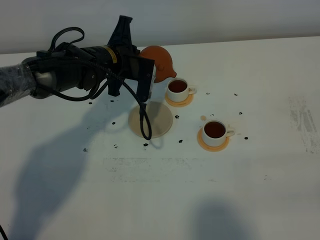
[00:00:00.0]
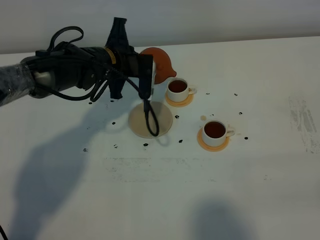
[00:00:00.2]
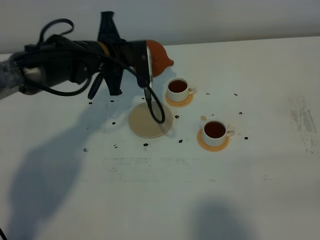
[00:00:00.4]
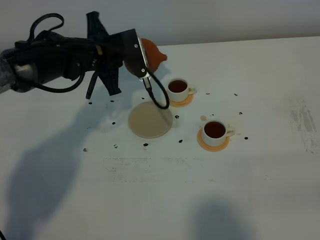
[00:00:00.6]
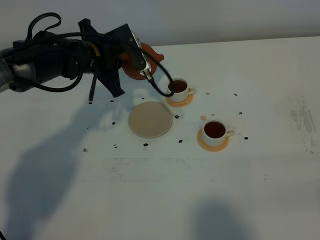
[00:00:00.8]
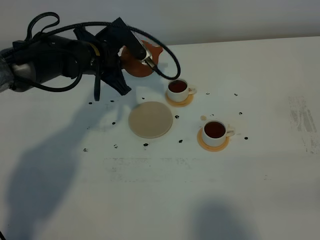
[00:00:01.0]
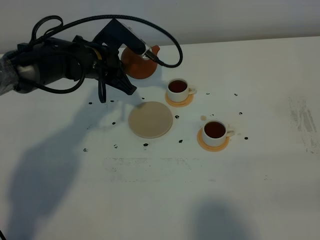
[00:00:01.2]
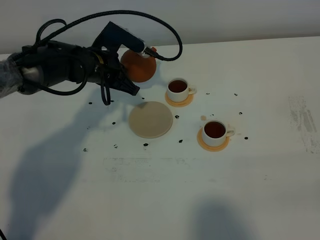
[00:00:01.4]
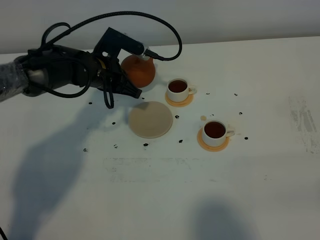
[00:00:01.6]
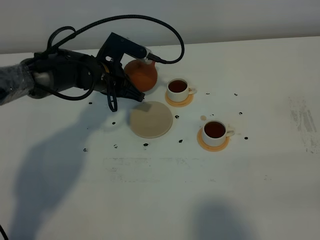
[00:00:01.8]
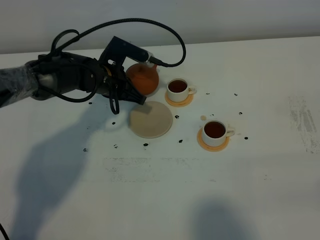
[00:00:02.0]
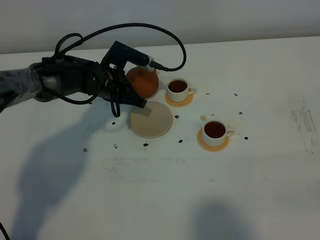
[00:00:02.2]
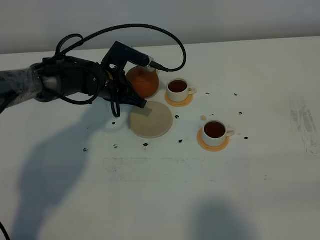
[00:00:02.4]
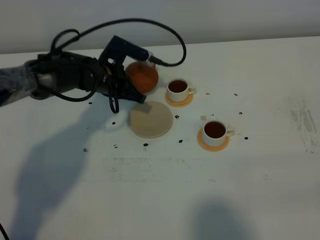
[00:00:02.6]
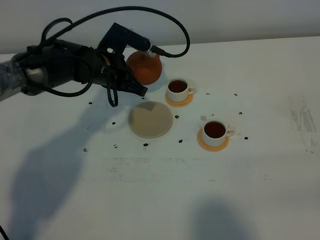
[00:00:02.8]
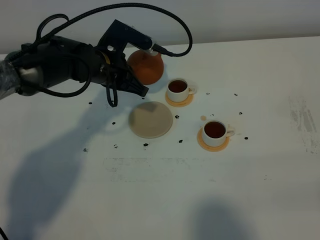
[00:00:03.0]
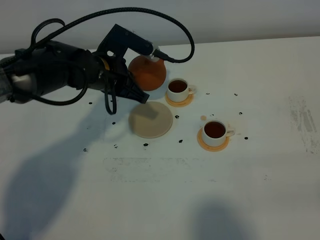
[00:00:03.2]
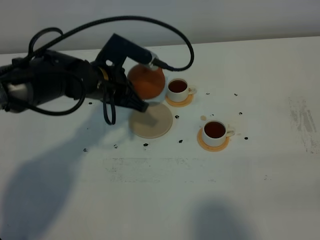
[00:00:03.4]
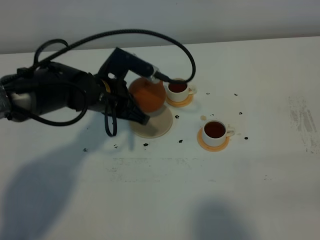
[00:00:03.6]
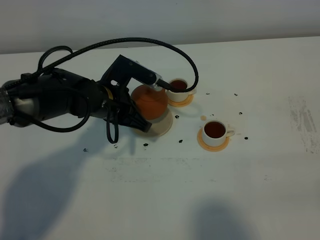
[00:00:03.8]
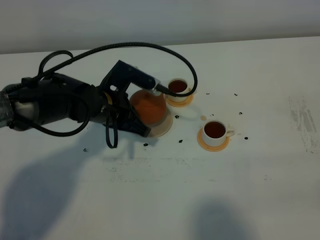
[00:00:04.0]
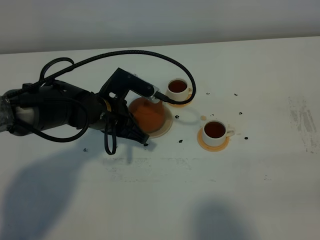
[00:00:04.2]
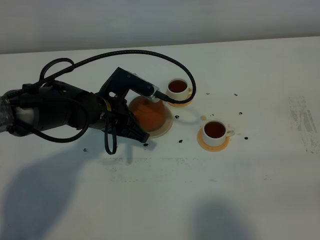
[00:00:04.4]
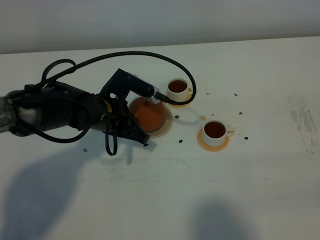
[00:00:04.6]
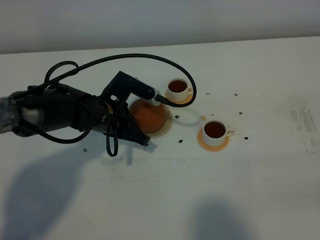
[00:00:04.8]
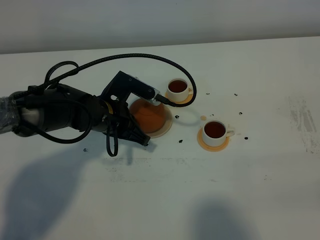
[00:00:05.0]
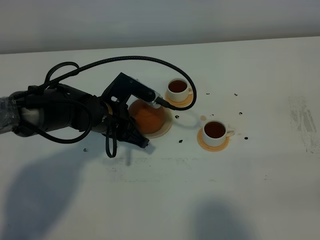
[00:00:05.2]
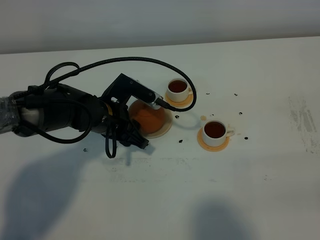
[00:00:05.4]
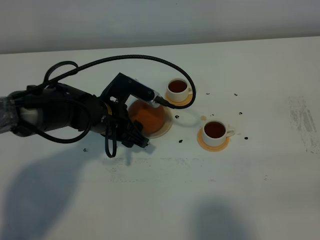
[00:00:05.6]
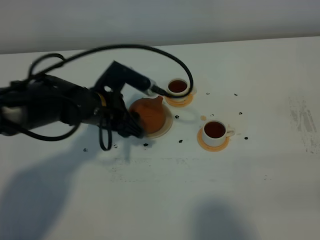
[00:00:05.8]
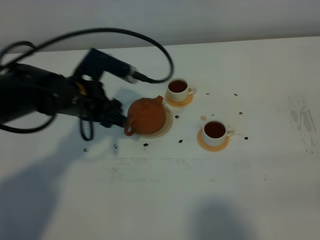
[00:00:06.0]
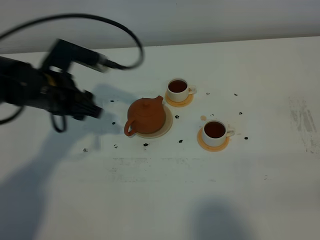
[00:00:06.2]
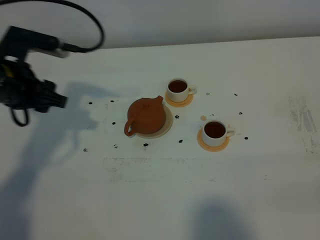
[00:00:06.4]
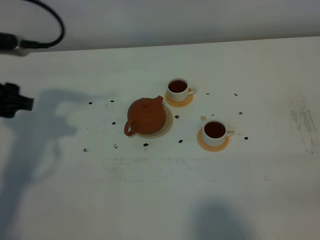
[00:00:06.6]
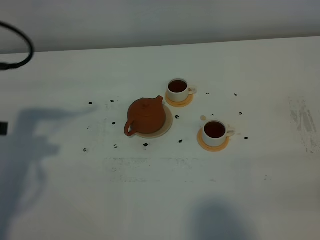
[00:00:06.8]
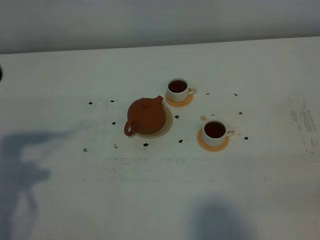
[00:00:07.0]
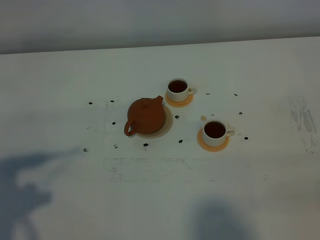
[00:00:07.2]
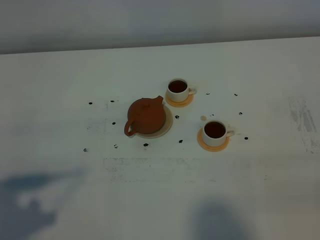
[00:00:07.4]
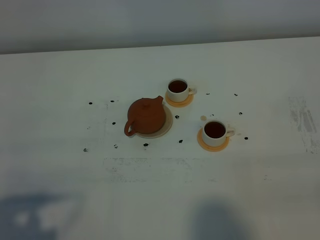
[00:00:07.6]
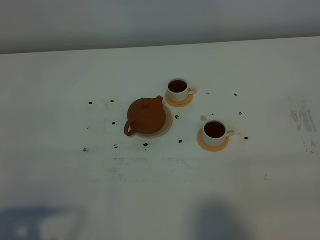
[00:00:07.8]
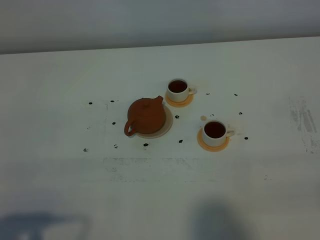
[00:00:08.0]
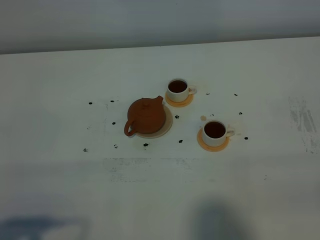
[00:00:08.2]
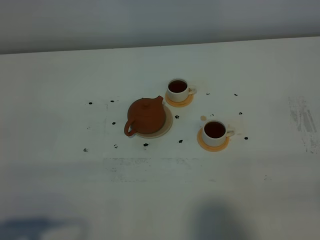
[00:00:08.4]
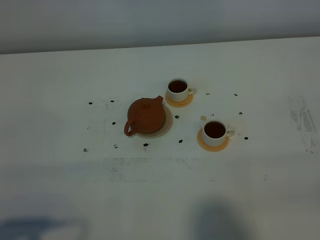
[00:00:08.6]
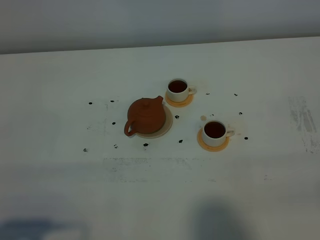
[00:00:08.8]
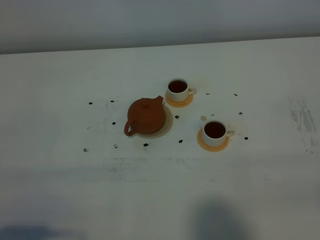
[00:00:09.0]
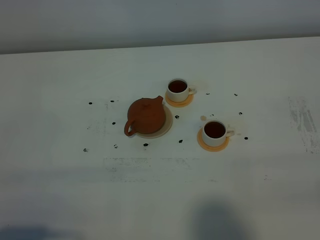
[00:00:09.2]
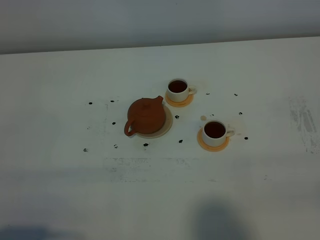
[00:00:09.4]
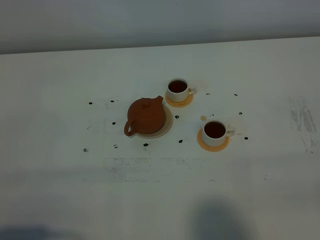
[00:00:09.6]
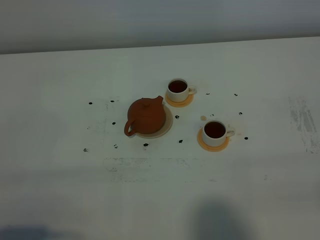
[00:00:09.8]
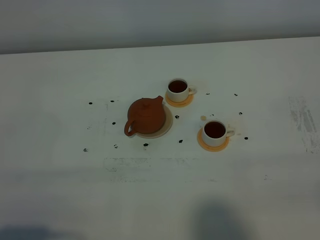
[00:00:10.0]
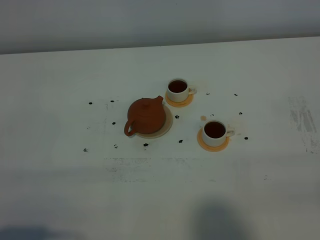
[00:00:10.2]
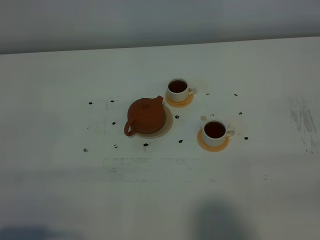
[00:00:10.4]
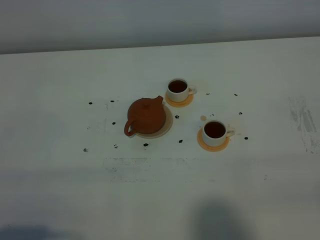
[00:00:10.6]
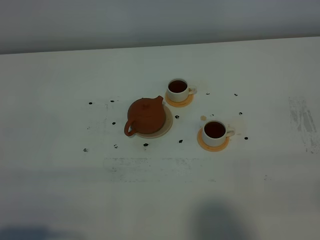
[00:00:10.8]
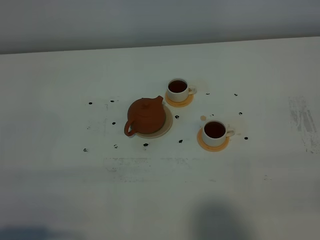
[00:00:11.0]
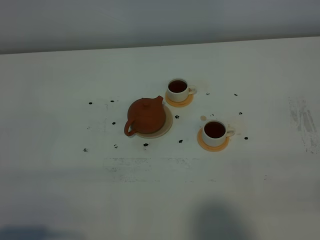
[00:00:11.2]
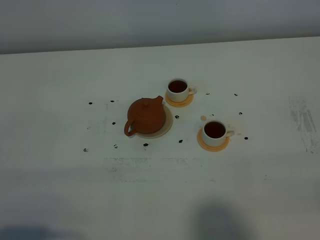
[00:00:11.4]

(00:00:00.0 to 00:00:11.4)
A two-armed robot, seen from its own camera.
Task of the whole recording: grasp the brown teapot and pour the tea into the two white teacups one by one, put the brown teapot back in its original place.
00:00:01.4 - 00:00:02.8: The grippers move only a little.
00:00:02.8 - 00:00:04.2: The left gripper shifts some 10 cm backward.
00:00:04.2 - 00:00:05.6: The left gripper opens its fingers.
00:00:05.6 - 00:00:07.2: The left gripper shifts roughly 35 cm backward, to the left and upward.
00:00:07.2 - 00:00:08.6: The left gripper goes some 10 cm backward.
